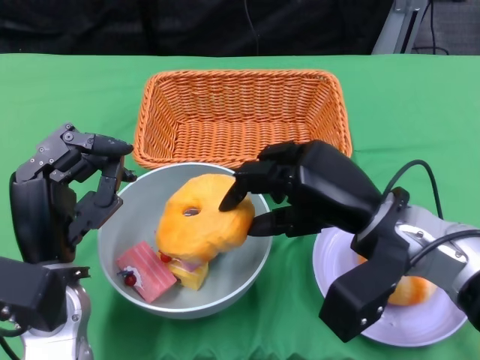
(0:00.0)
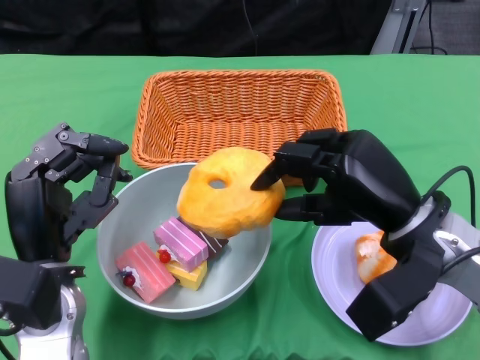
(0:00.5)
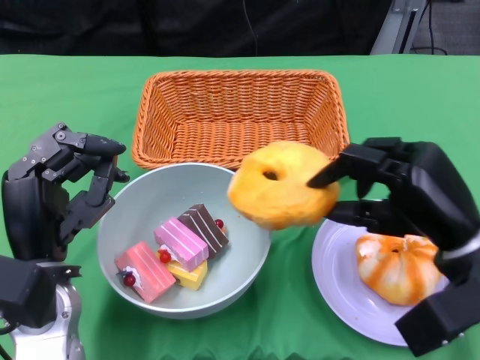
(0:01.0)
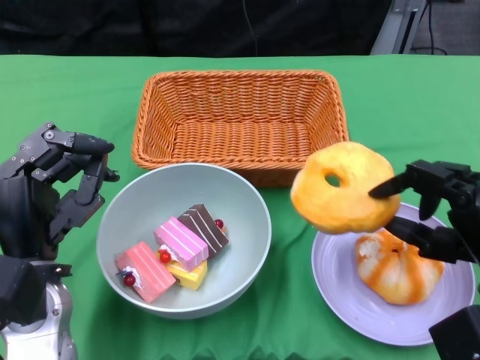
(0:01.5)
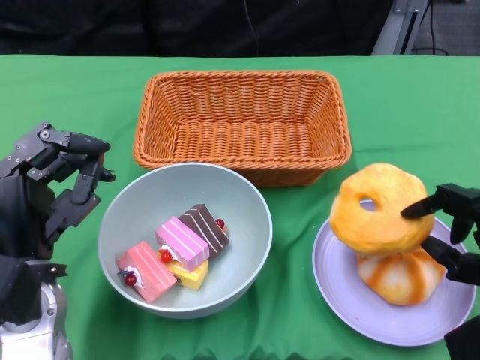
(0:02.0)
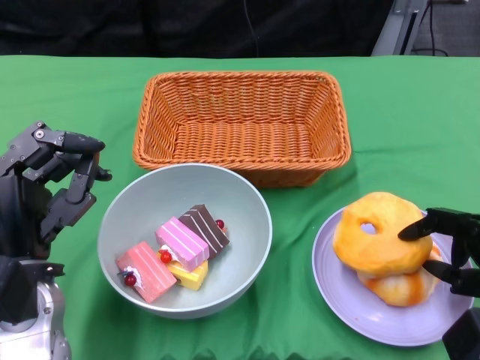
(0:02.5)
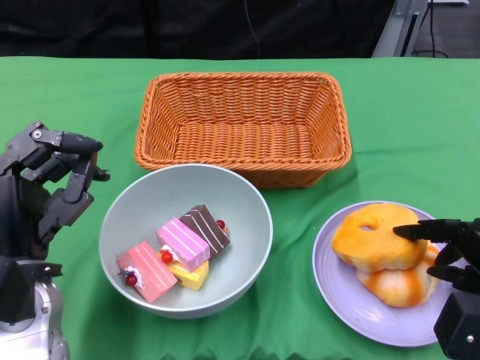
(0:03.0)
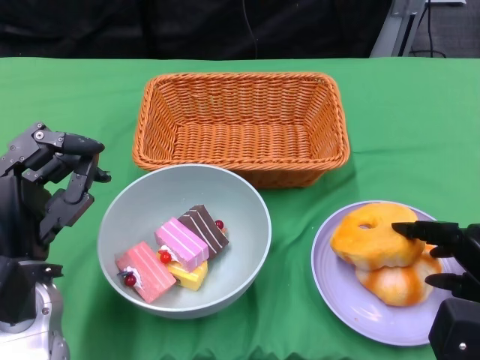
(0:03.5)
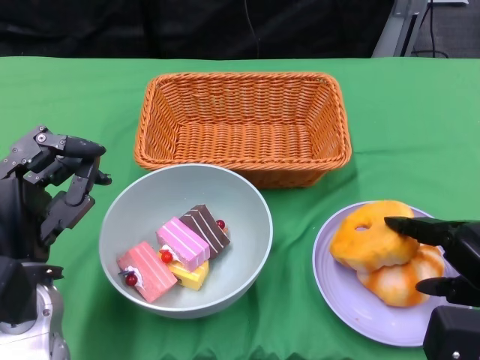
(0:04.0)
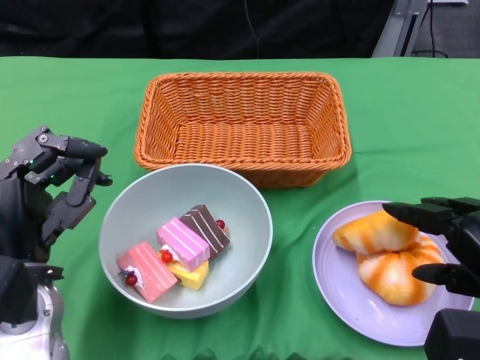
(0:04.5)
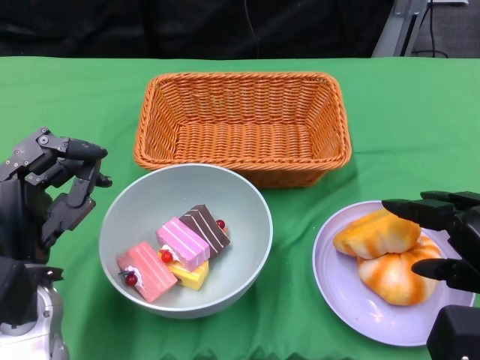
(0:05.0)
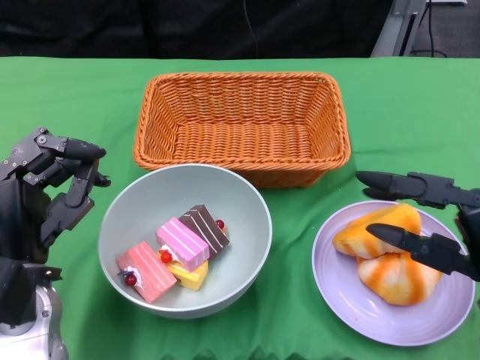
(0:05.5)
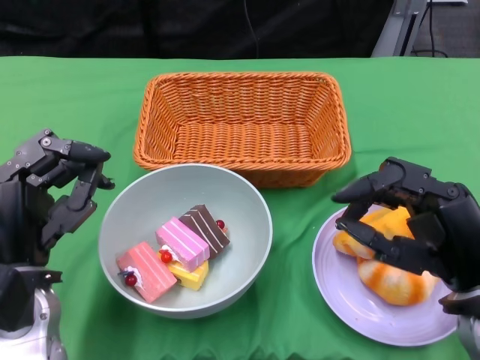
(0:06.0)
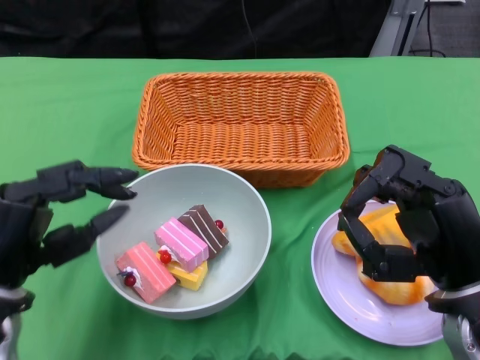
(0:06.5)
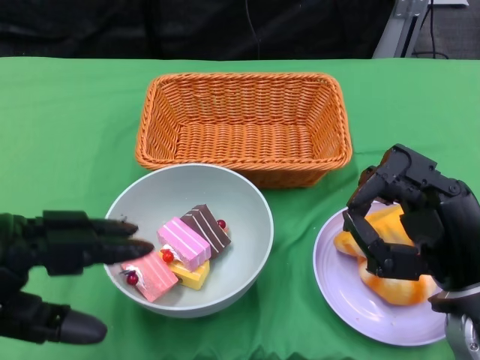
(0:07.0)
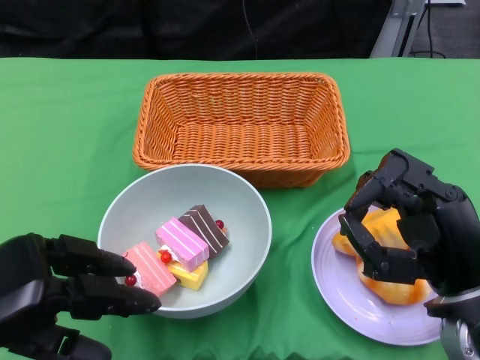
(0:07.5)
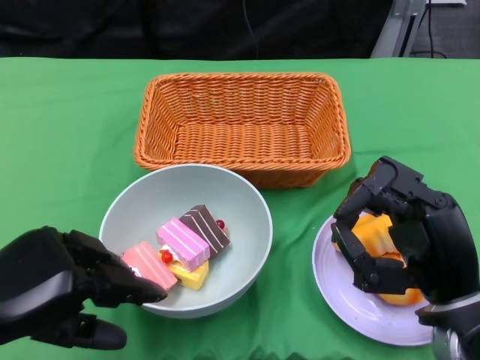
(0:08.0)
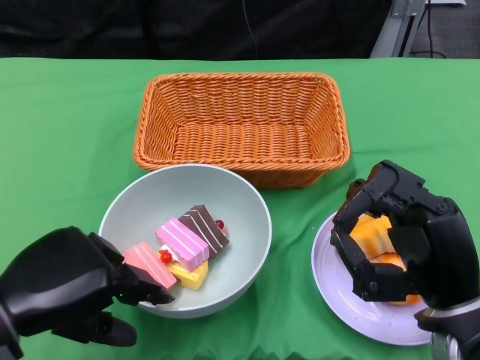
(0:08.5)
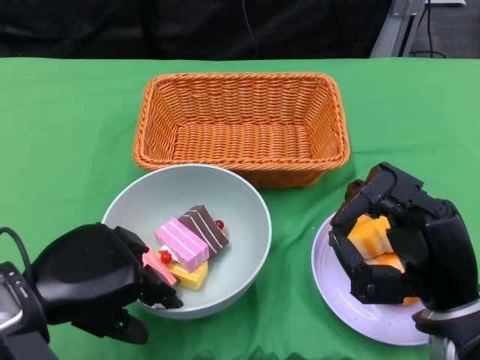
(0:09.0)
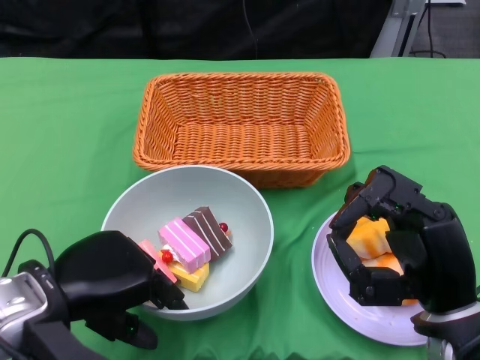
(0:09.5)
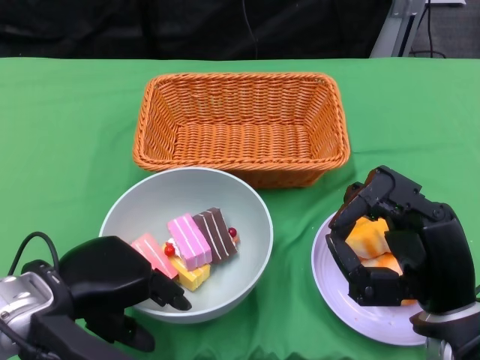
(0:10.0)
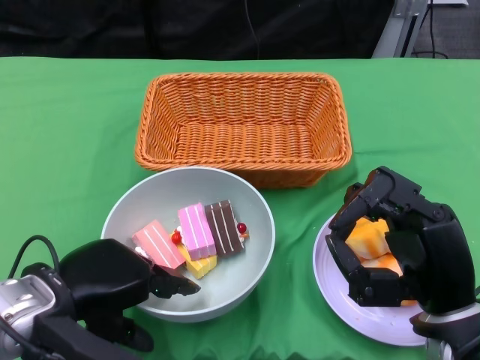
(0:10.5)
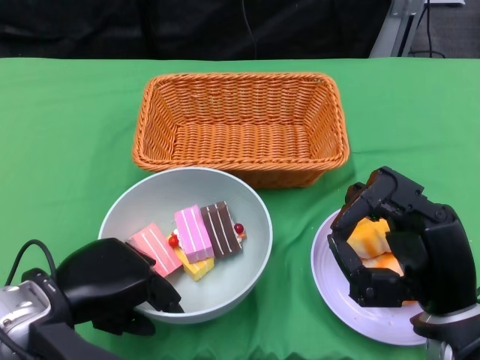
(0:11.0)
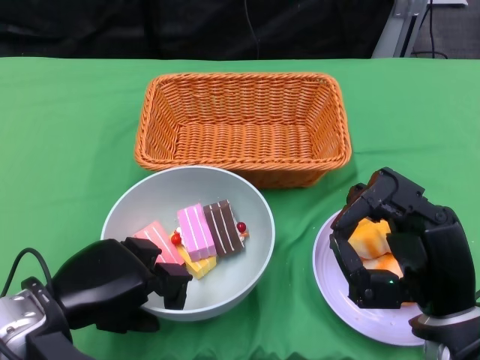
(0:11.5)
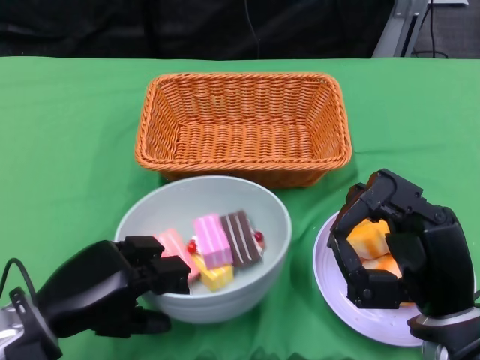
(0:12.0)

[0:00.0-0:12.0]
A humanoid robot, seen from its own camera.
Step, 0:00.0 to 0:04.5: Pick up the bread with the right gripper and place it on the plate.
Step, 0:05.0 to 0:11.5: Grasp the bowl with the left gripper.
0:00.0 to 0:02.0: The right hand shifts some 15 cm to the right, backward and downward.
0:04.0 to 0:06.0: The right hand travels to the left by some 5 cm.
0:06.0 to 0:08.0: The left hand heads to the left and backward, covering roughly 10 cm.
0:08.0 to 0:10.0: The left hand is displaced to the right by approximately 5 cm.

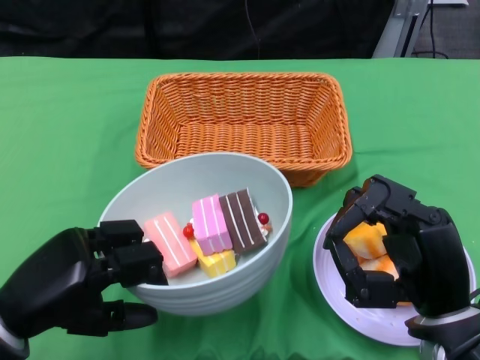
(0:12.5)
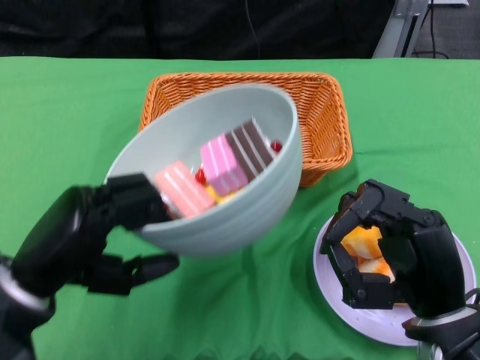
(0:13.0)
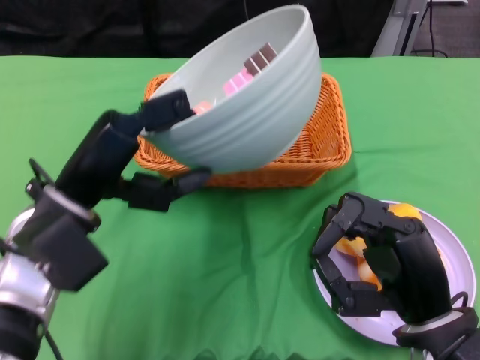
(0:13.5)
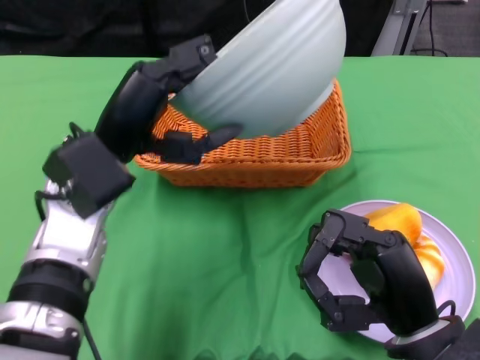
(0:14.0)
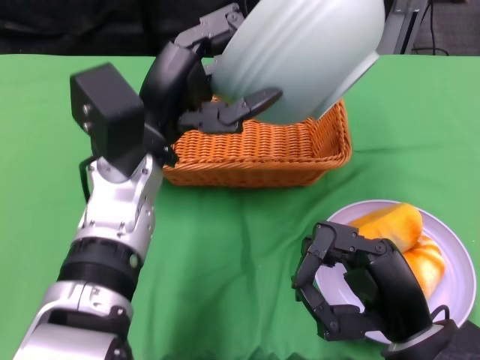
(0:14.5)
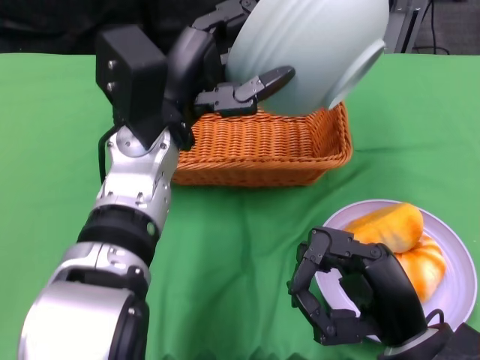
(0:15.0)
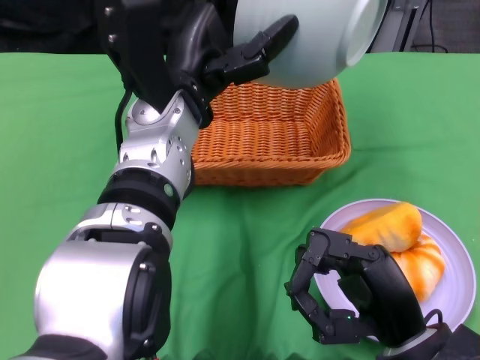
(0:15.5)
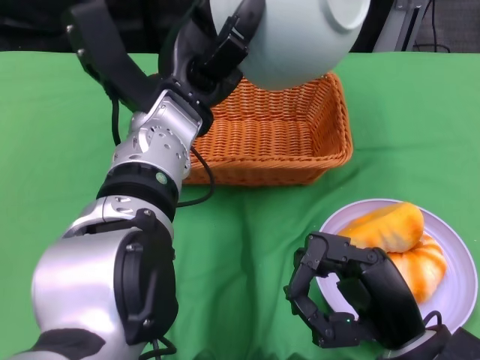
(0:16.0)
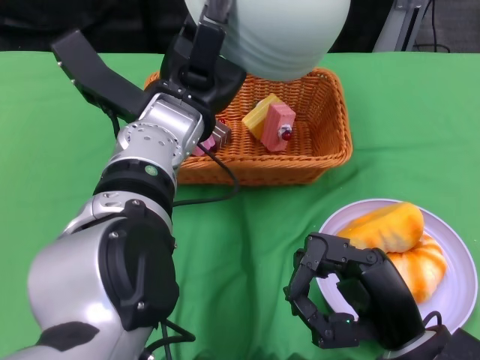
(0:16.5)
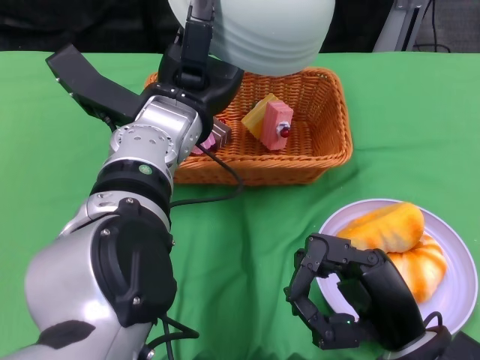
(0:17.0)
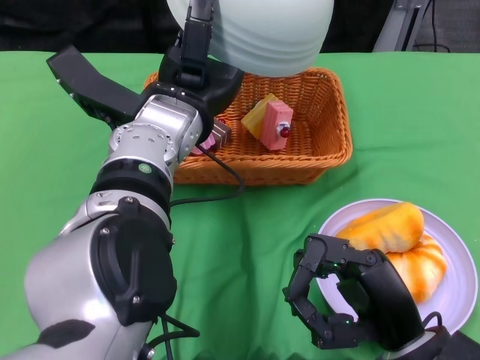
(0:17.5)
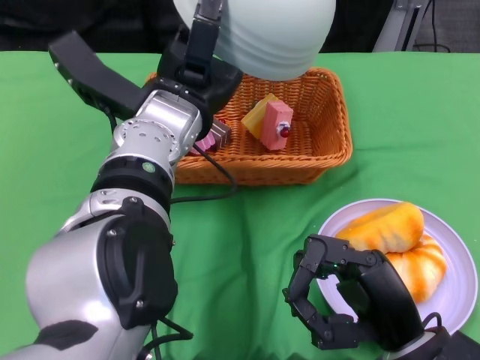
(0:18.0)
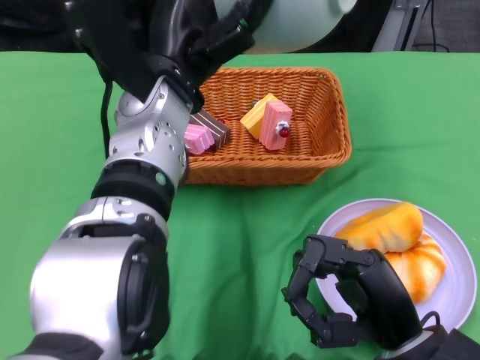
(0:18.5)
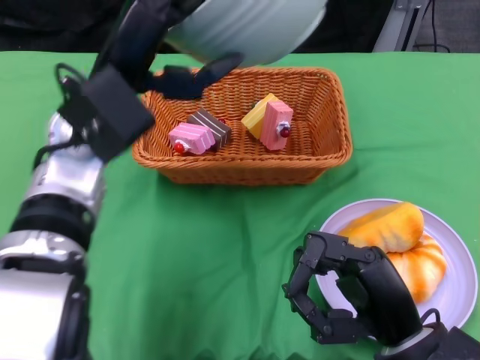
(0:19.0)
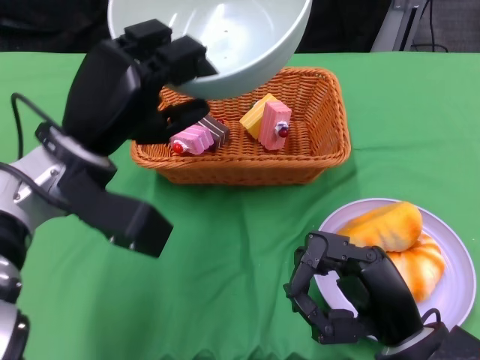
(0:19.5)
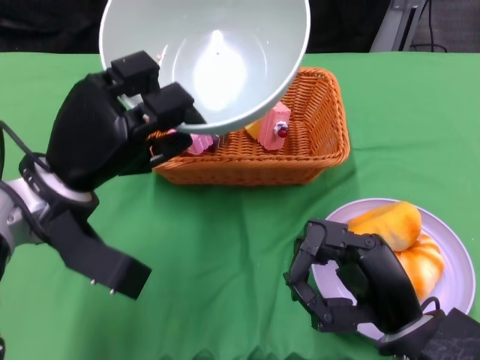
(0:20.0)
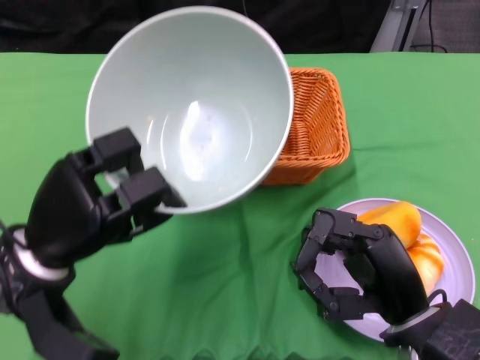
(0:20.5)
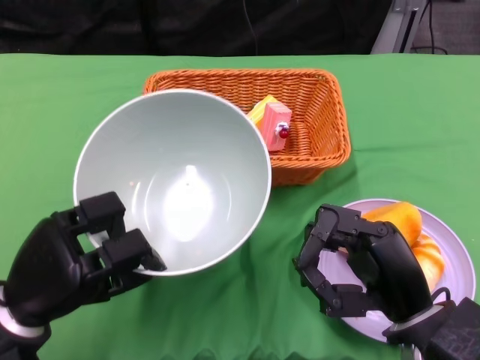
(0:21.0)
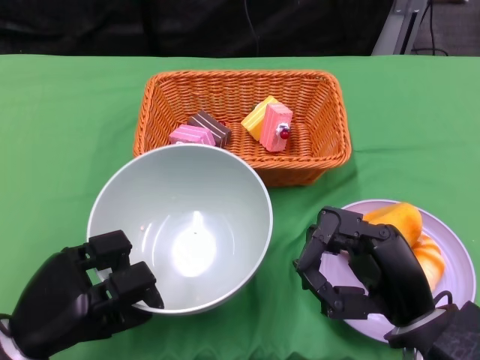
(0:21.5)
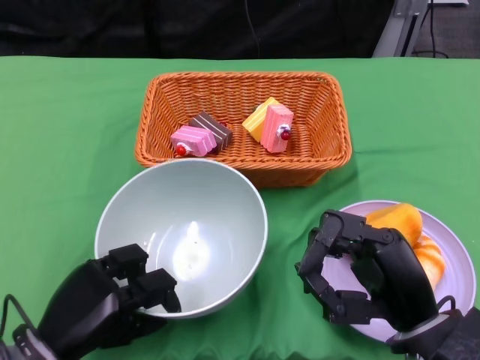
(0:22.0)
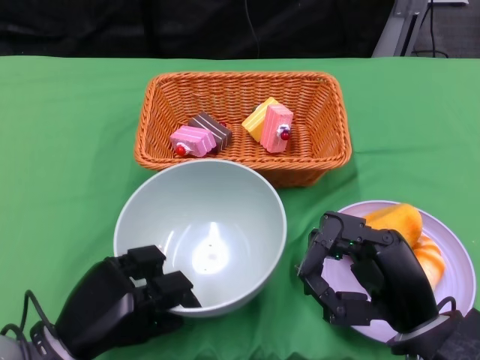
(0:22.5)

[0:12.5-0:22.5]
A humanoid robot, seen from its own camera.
Step, 0:12.5 to 0:16.5: Pour the cake into the basket with the left gripper.
0:12.5 to 0:14.5: The left hand heads to the right, forward and upward, covering some 20 cm.
0:14.5 to 0:16.5: The left hand shifts by about 5 cm.
0:18.5 to 0:20.5: The left hand travels to the left, downward and backward by some 20 cm.
0:20.5 to 0:22.5: The left hand travels downward and backward by about 10 cm.

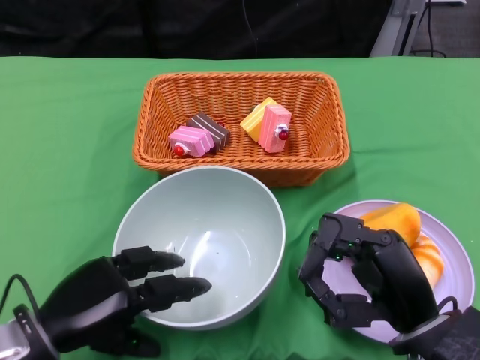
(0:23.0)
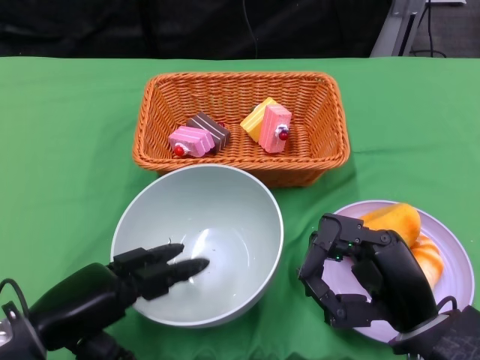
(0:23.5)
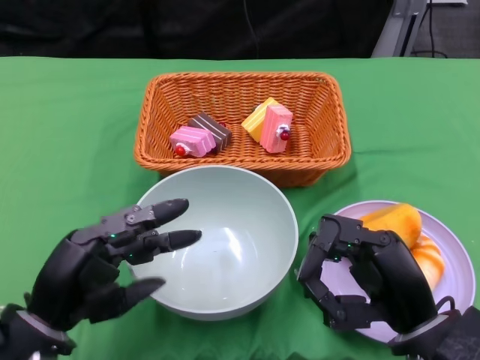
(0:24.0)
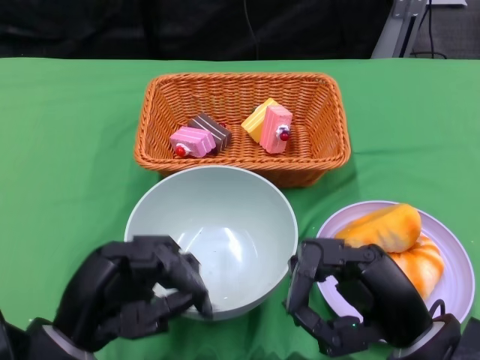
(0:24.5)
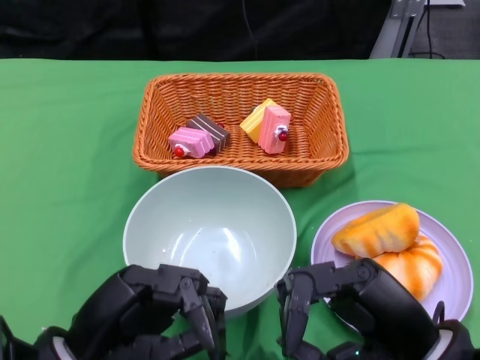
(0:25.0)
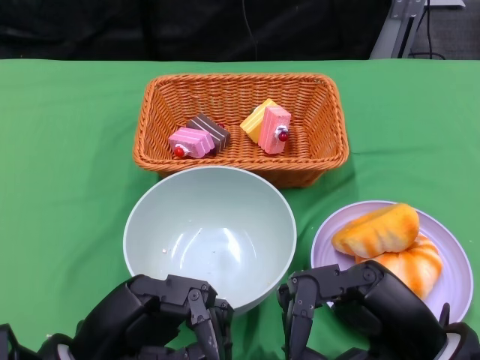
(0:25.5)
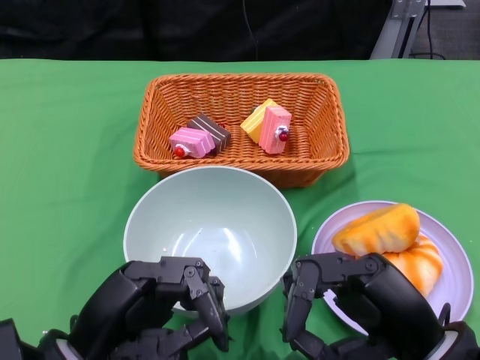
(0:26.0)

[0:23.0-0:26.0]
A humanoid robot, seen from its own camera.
0:23.0 to 0:24.5: The left hand changes place by roughly 5 cm.
0:24.5 to 0:26.0: The hands move only a little.
